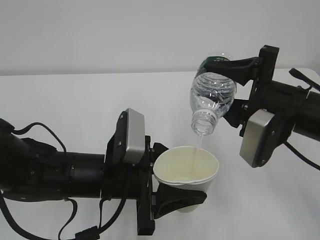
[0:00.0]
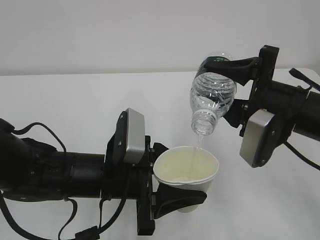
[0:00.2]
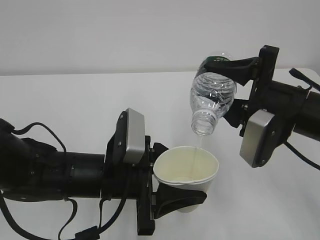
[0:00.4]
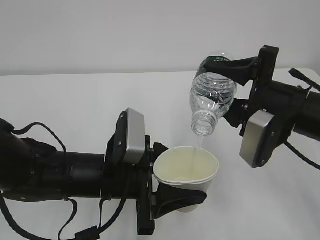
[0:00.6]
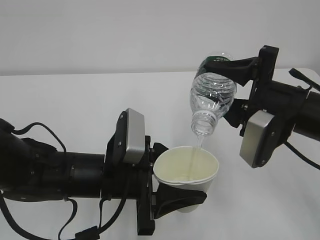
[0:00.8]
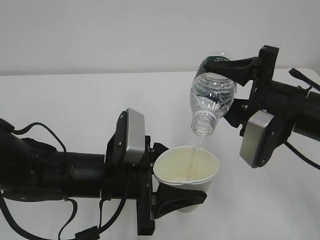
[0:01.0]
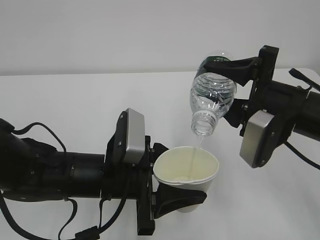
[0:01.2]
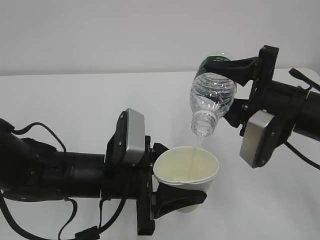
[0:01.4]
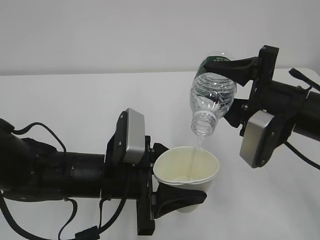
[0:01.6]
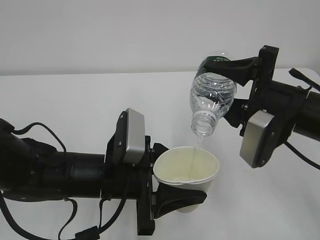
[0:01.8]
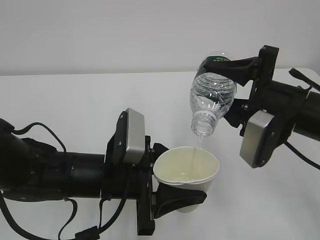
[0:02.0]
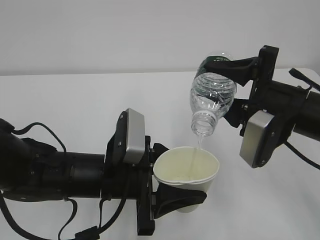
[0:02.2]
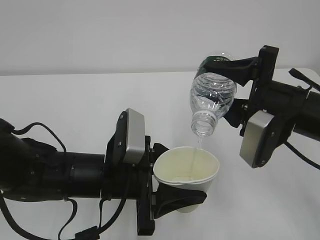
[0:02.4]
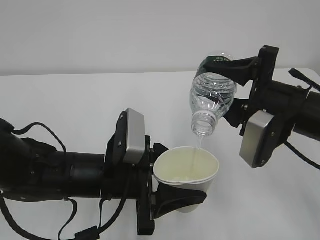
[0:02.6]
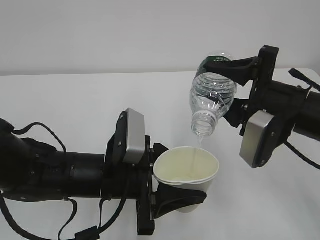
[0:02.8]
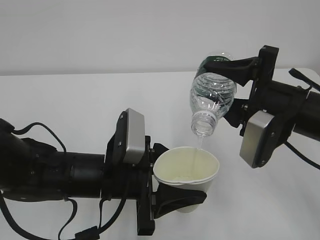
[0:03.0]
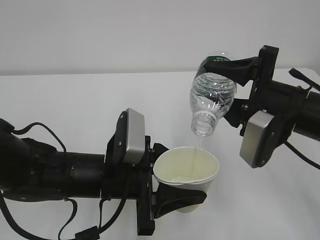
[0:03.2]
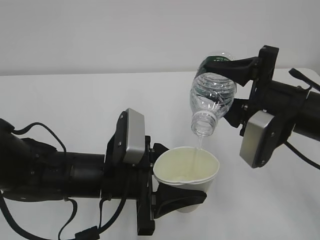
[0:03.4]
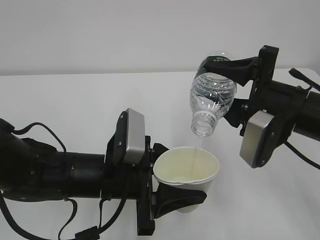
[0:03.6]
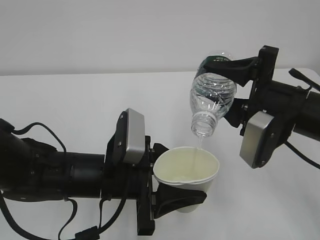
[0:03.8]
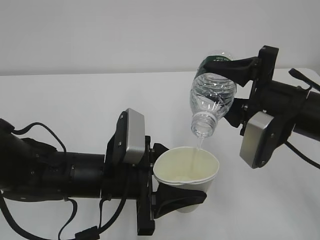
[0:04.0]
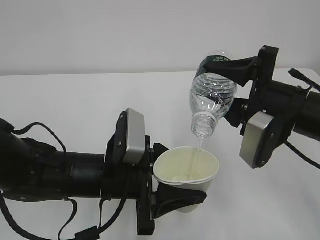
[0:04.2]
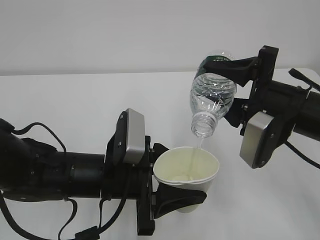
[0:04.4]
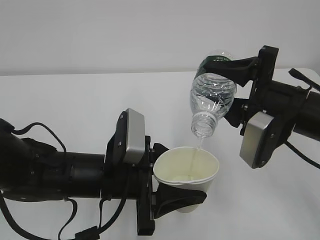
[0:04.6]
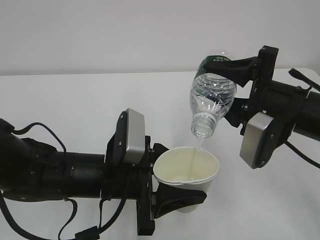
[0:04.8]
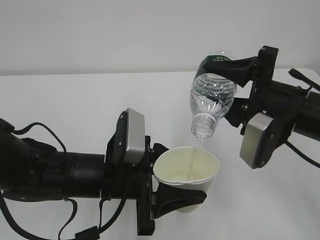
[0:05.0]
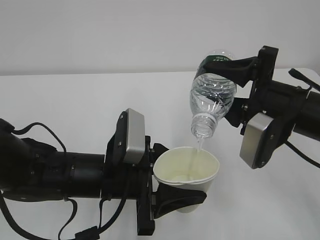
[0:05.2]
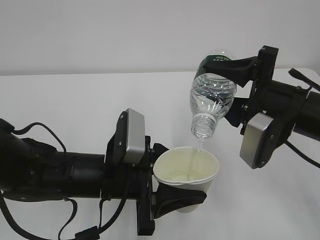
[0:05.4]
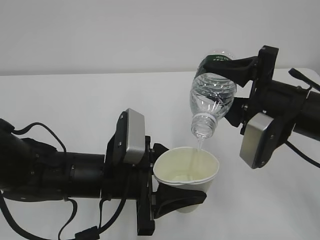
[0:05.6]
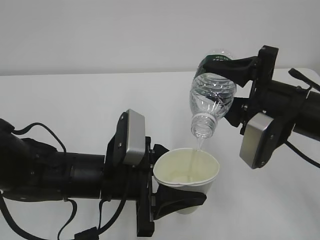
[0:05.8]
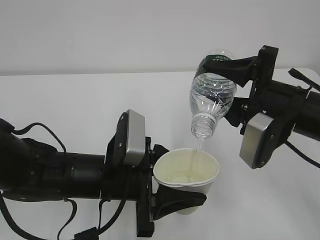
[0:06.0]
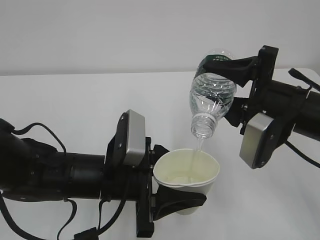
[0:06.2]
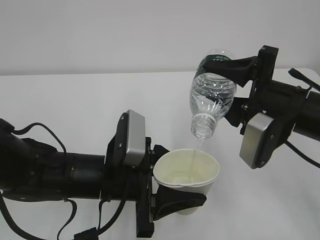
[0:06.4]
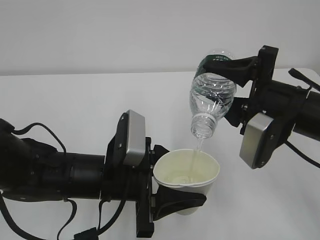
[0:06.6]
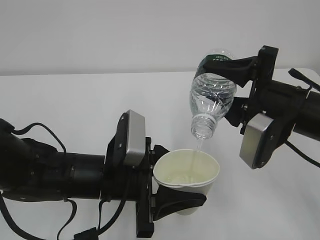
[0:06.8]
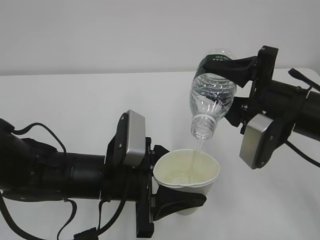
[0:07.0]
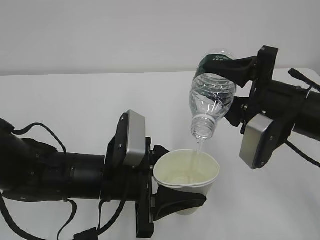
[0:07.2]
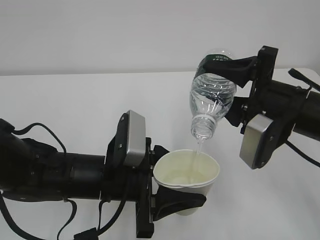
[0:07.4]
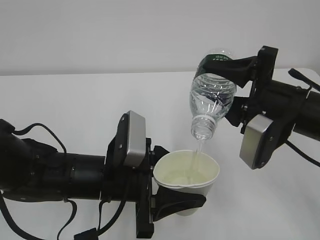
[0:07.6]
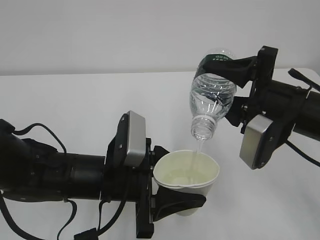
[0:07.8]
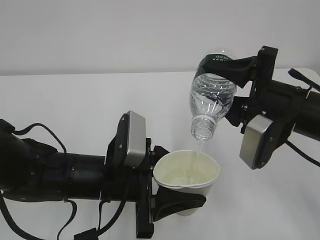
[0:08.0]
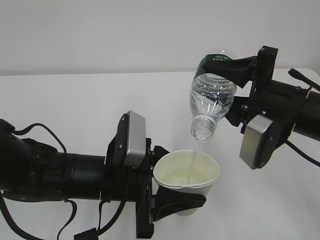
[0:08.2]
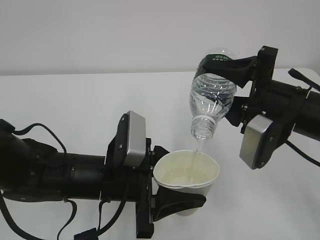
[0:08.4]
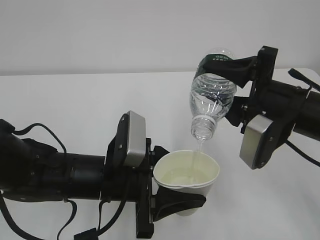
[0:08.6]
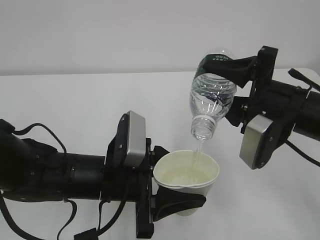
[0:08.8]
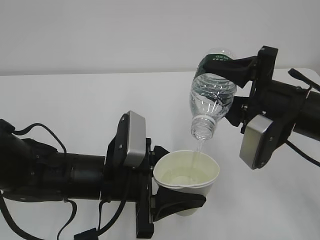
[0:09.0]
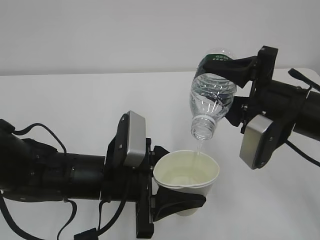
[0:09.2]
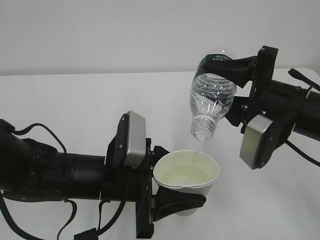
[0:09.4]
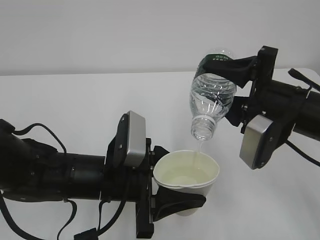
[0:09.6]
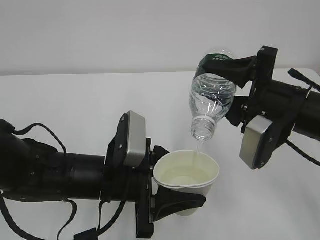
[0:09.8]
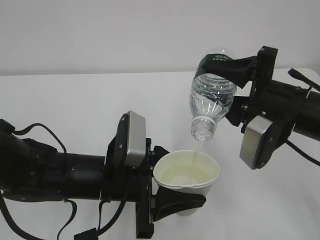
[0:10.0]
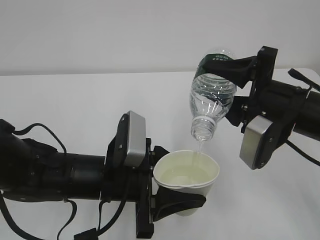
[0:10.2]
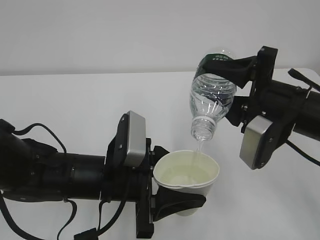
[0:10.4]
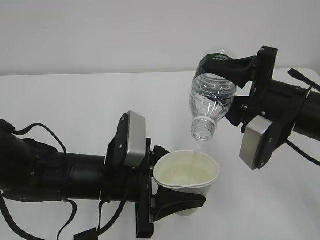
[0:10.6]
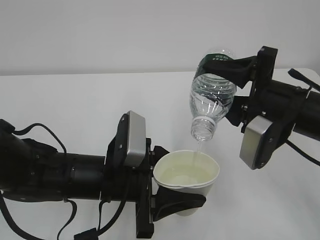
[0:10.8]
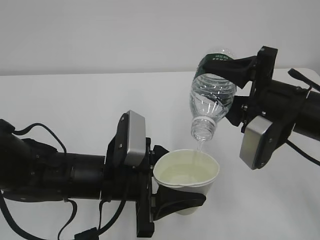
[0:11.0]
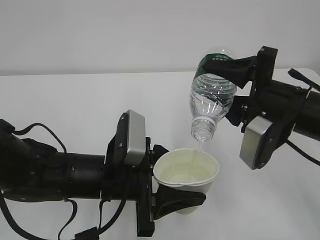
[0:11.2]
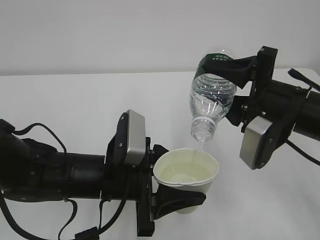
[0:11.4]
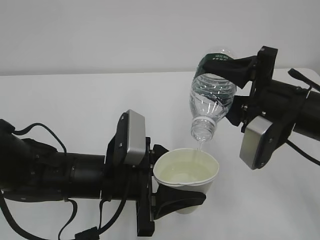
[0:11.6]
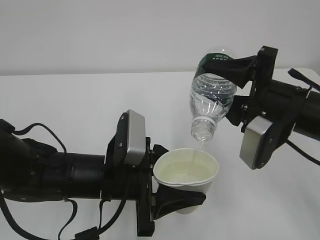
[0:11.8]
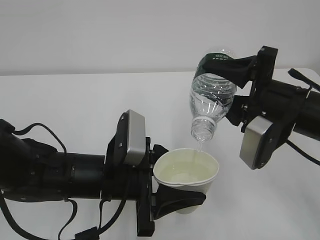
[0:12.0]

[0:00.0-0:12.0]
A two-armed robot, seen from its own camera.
0:00.0 to 0:06.0: Both grippers stay about where they are.
0:06.0 to 0:12.0: The two grippers keep their place.

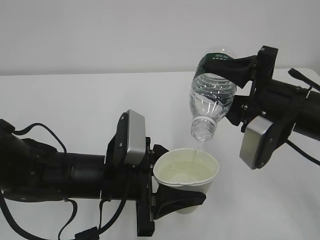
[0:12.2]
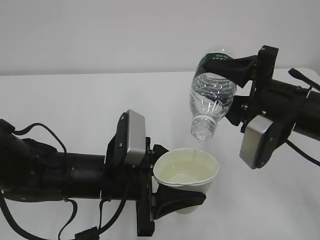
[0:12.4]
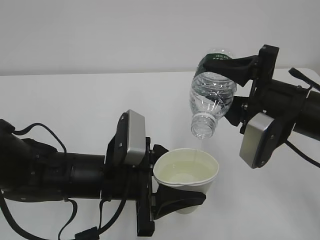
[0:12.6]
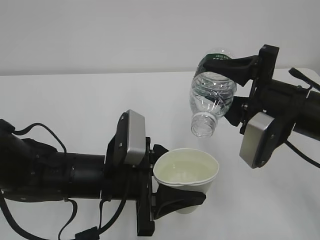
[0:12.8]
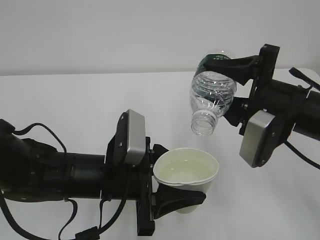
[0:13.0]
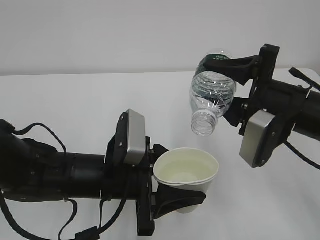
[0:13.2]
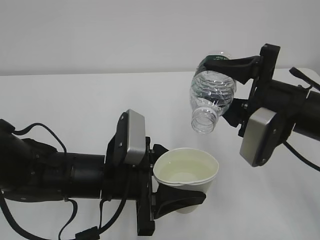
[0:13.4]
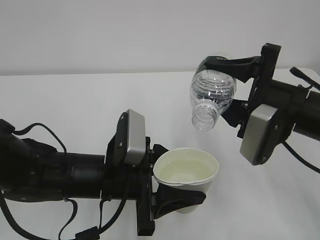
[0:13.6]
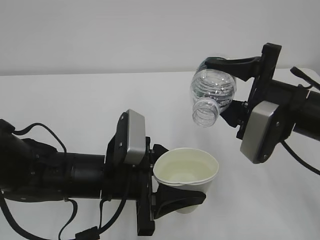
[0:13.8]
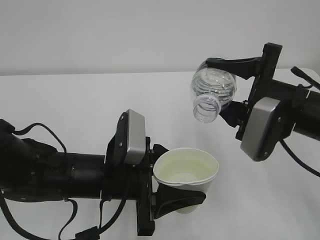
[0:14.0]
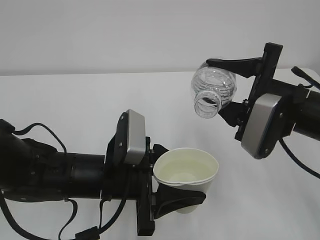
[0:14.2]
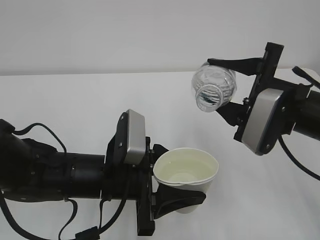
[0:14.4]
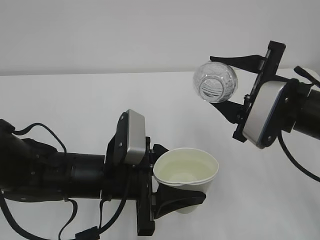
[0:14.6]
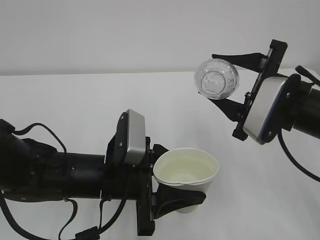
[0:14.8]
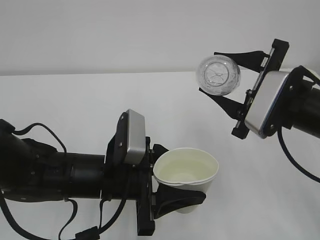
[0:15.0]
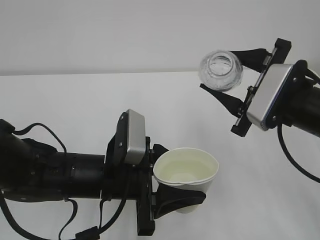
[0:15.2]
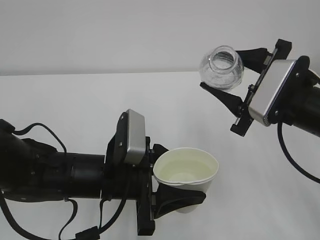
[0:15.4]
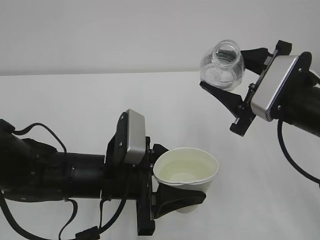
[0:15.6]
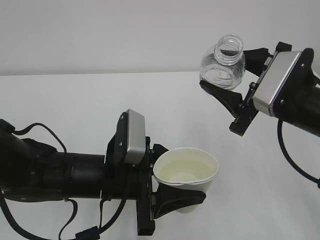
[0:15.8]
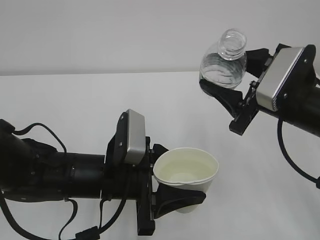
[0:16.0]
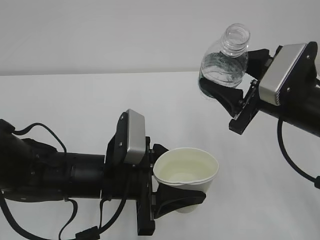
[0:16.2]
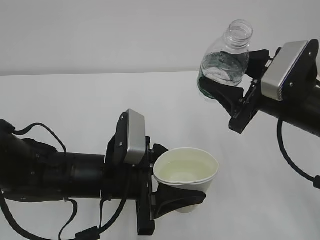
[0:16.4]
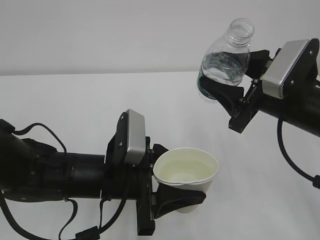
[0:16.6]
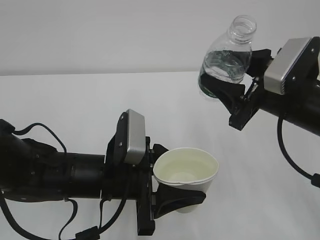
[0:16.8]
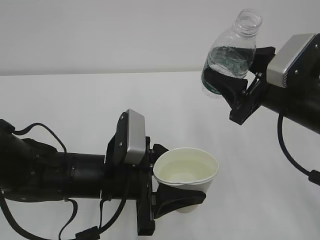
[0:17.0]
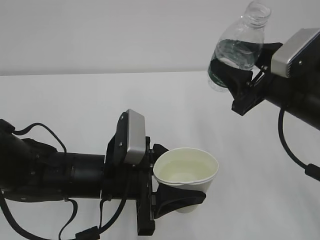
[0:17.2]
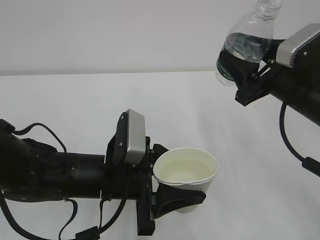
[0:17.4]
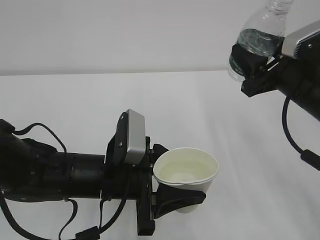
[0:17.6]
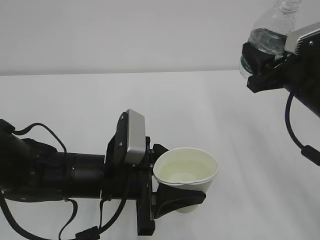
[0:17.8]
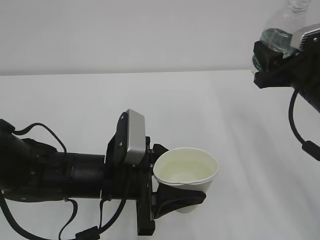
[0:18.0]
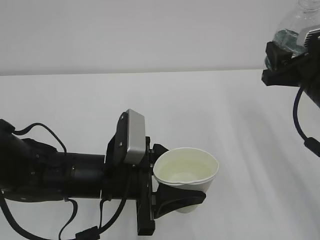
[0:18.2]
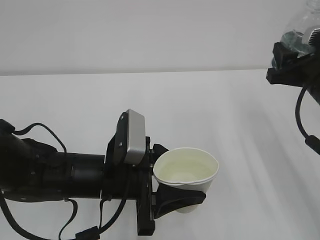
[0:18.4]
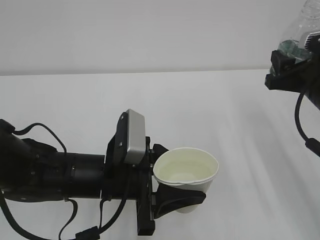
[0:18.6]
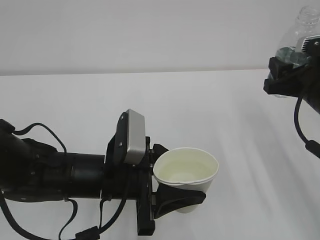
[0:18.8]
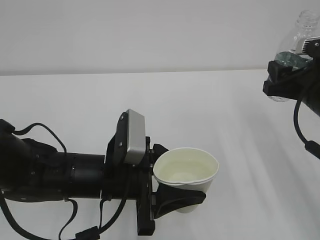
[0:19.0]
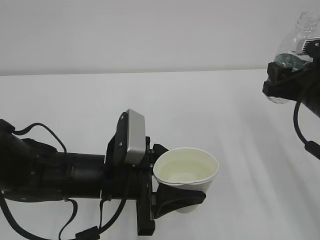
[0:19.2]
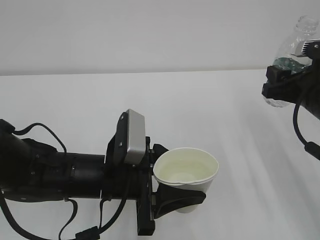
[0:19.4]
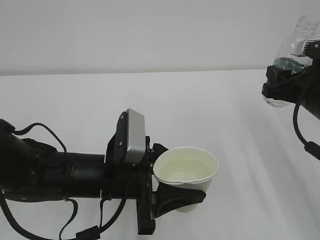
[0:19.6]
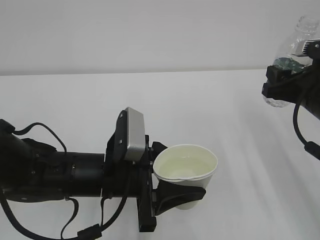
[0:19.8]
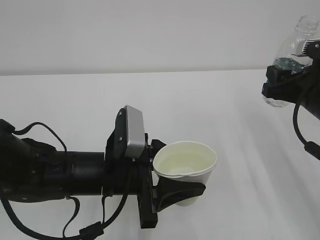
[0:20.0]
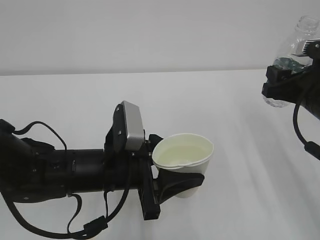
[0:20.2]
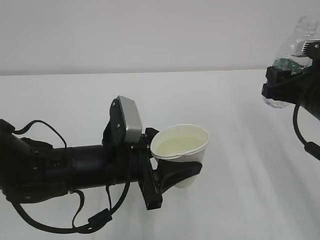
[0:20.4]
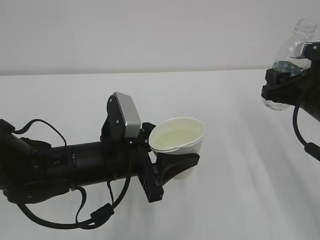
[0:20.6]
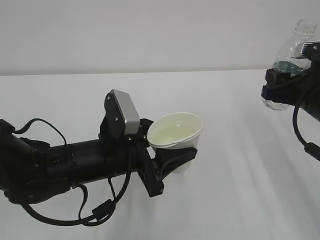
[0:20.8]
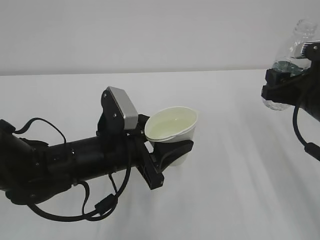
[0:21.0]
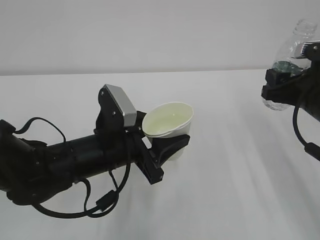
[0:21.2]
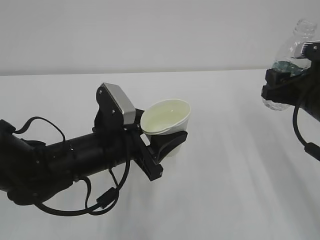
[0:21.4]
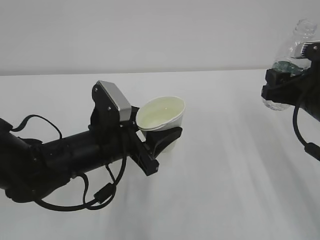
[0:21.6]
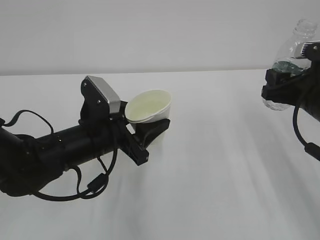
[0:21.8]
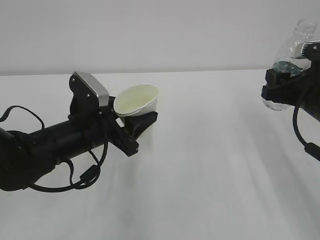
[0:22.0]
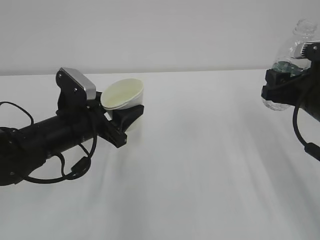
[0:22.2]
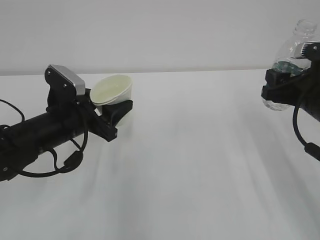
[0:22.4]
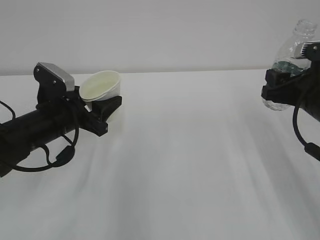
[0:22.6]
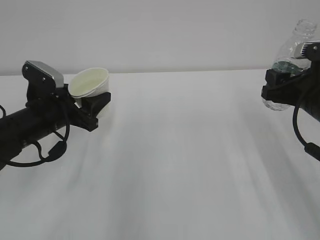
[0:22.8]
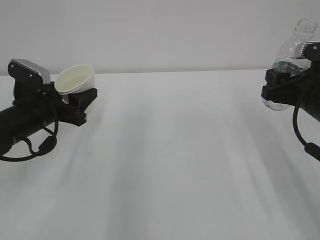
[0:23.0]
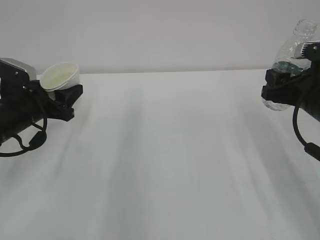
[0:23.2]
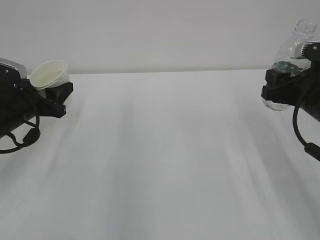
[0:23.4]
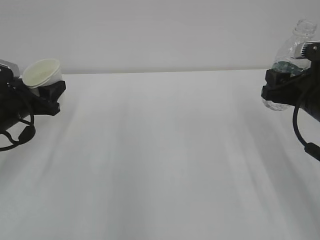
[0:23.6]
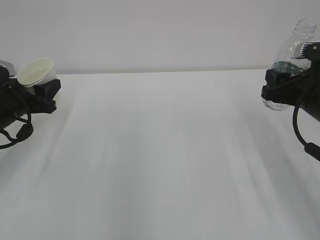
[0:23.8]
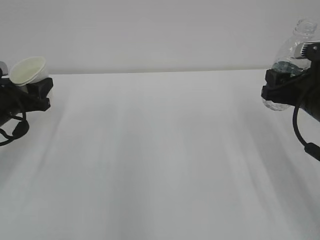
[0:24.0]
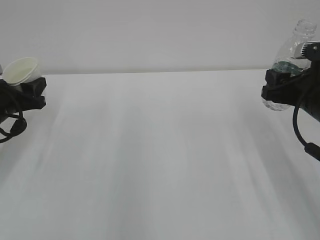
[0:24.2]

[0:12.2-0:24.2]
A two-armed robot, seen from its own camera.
0:12.2 to 0:13.8: The grippers make only small movements.
0:16.6 to 0:18.2: The right gripper heads to the right, covering roughly 5 cm.
0:18.2 to 0:19.8: The grippers make only small movements.
0:21.2 to 0:22.6: The left gripper heads to the left and forward, covering approximately 10 cm.
0:22.6 to 0:24.2: The left gripper goes roughly 10 cm to the left.
